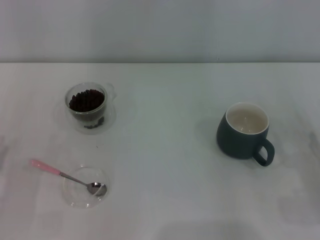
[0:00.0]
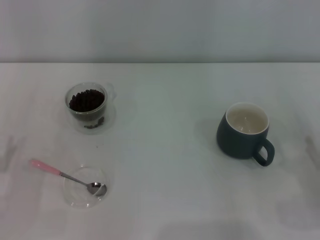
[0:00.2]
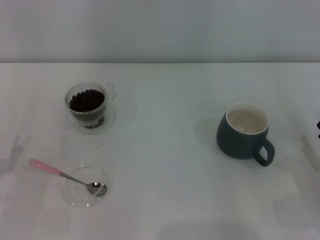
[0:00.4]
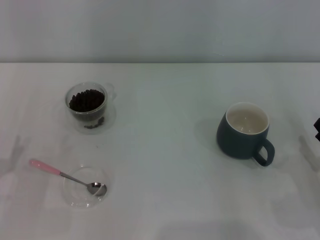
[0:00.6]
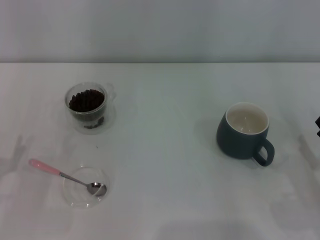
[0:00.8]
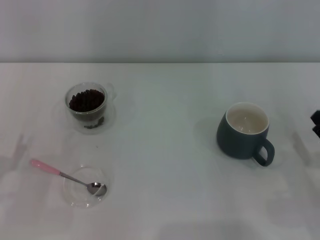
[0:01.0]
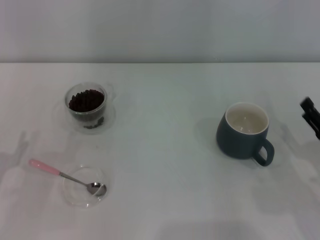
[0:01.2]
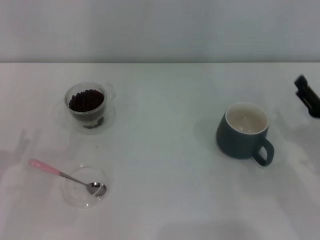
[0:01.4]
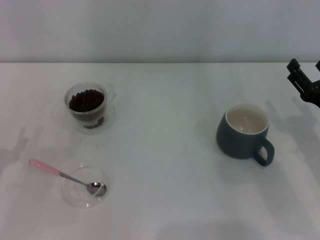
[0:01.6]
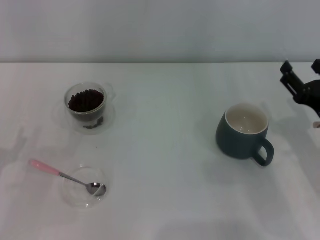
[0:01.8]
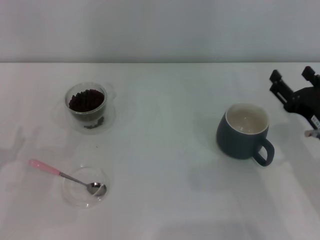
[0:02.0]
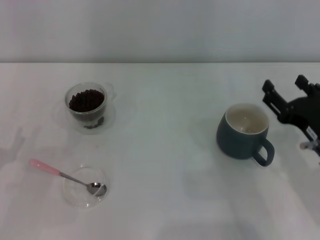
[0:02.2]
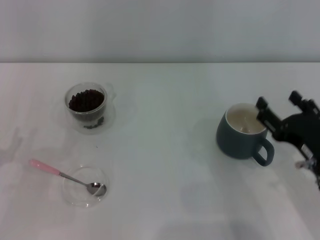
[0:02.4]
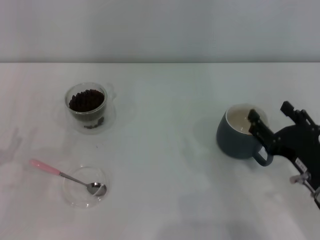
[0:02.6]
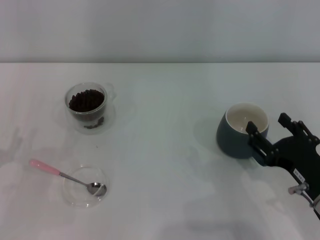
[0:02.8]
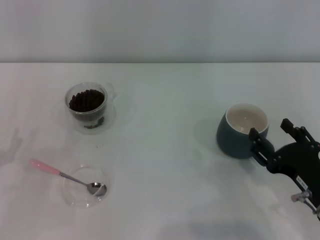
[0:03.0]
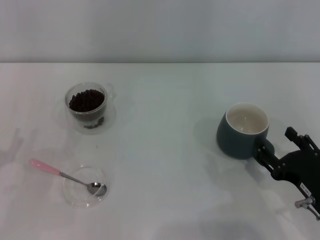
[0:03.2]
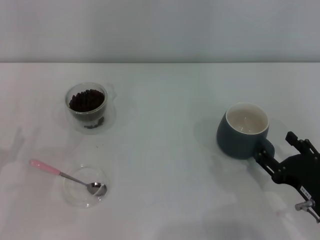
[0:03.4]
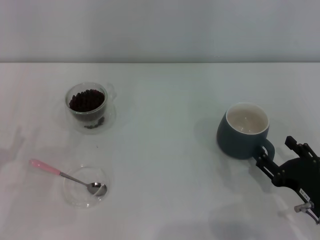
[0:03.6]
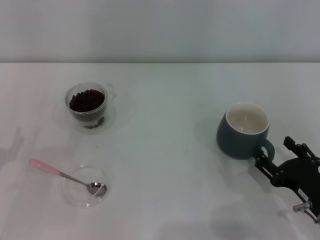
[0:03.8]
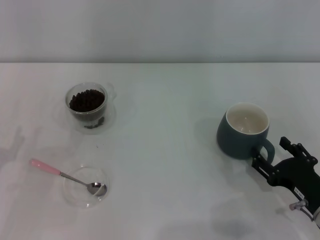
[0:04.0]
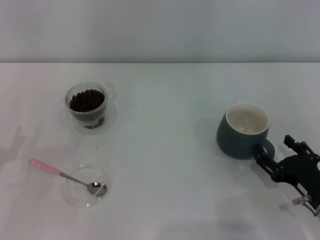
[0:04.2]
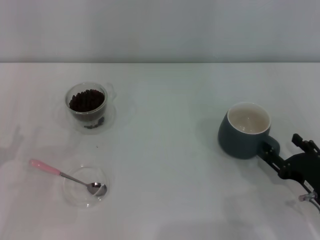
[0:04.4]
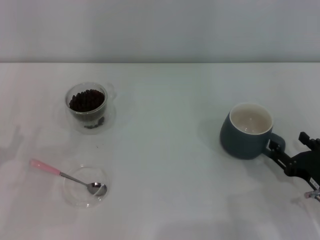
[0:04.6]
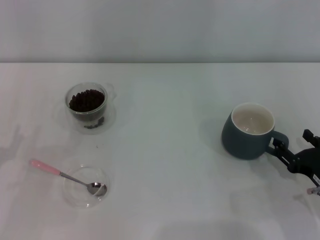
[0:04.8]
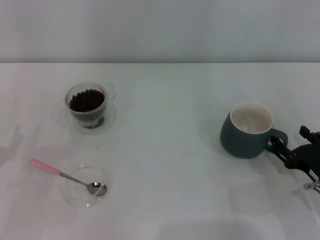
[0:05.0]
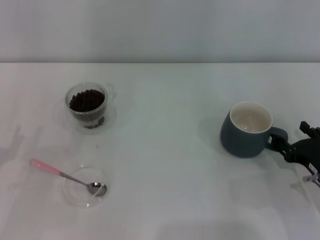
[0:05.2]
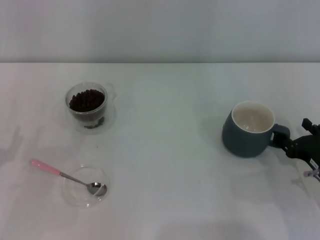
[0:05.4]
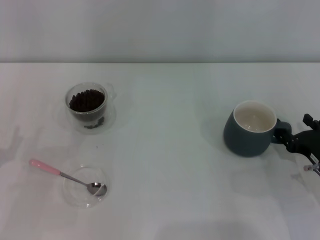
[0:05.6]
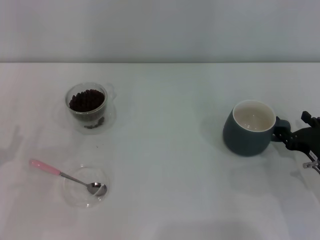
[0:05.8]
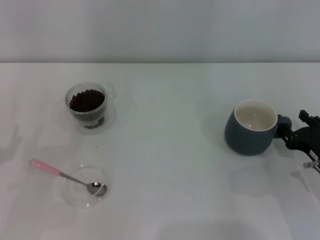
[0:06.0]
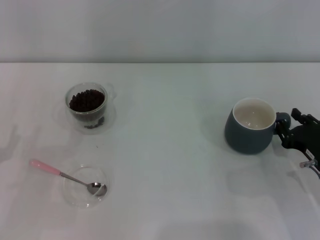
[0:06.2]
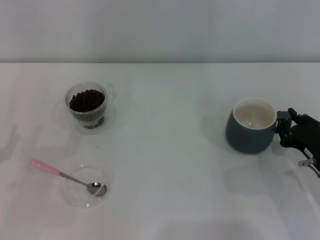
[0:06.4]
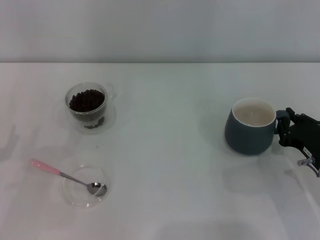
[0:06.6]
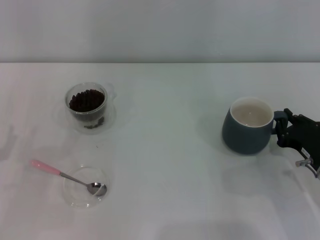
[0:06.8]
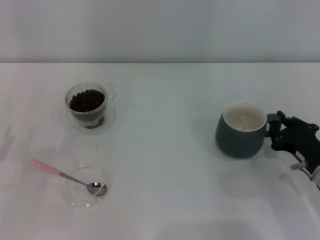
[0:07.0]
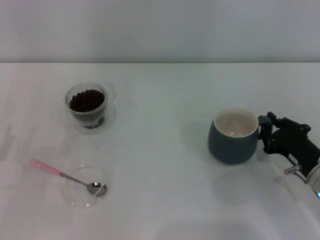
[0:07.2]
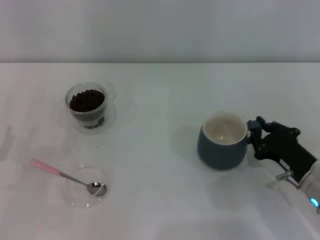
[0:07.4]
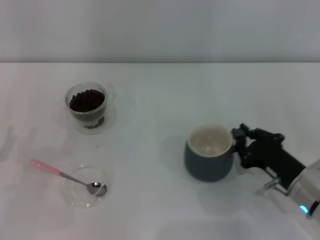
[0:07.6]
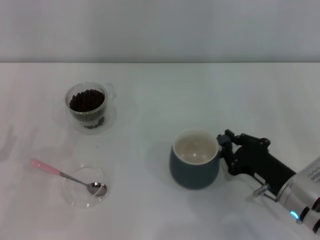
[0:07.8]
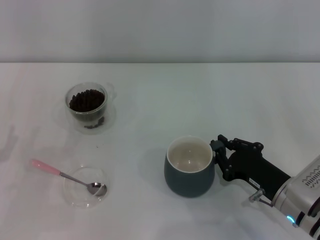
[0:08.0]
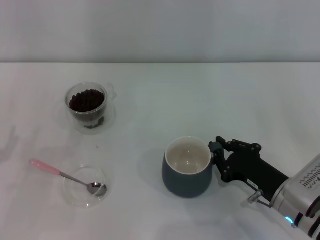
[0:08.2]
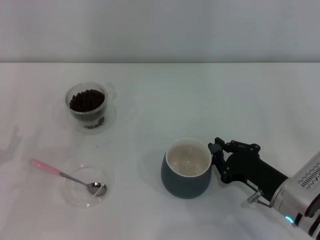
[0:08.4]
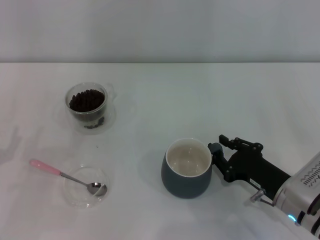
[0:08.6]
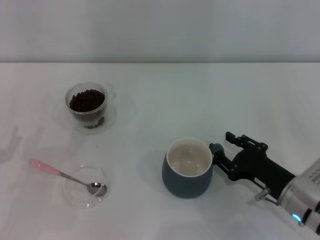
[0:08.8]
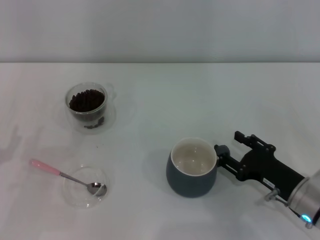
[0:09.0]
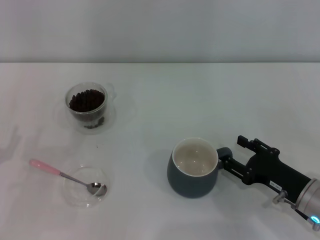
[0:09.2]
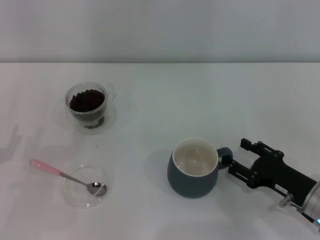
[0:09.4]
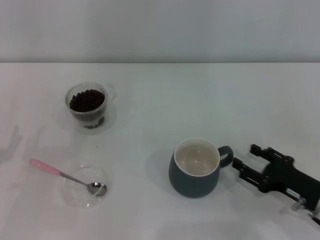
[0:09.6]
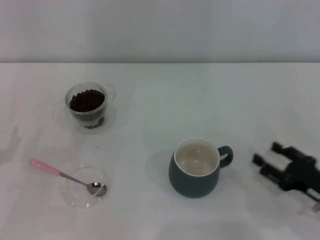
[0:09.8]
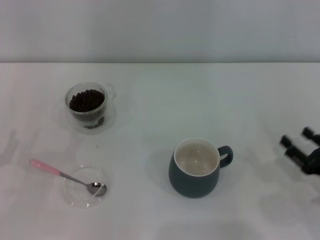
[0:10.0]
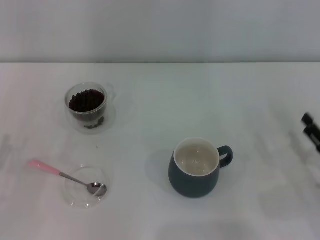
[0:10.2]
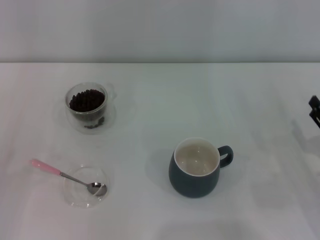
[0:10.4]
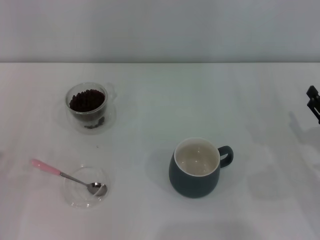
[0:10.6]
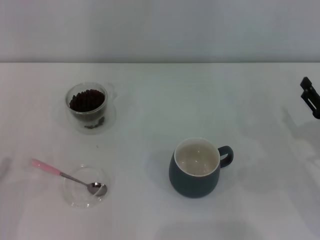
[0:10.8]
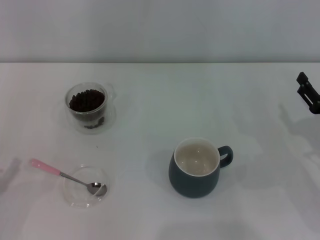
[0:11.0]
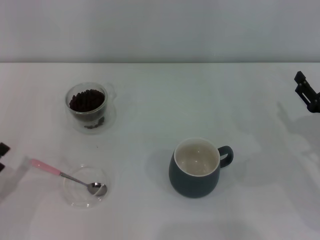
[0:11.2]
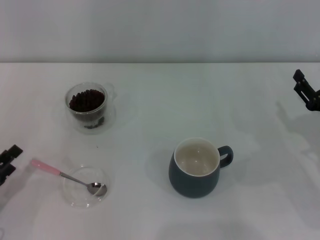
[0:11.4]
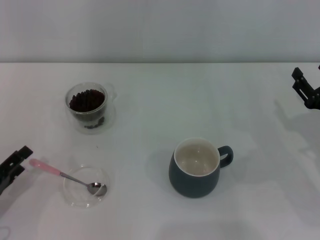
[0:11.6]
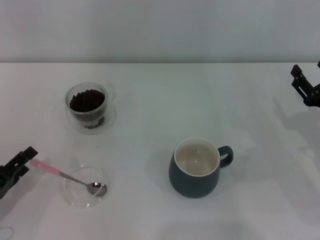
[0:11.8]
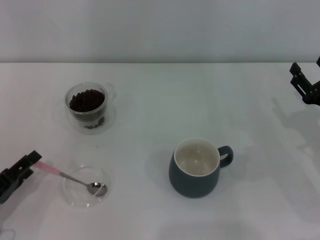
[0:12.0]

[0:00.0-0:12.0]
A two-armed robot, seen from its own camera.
Task of the whole recording: Use a pink spoon to take out the coffee beans from the glass and pour them into the gray cup.
0:00.0 to 0:01.6: The right gripper moves forward and to the left, approximately 10 cm.
0:01.6 to 0:03.0: The right gripper goes about 10 cm backward and to the left.
0:03.0 to 0:04.4: The right gripper moves approximately 5 cm.
0:04.4 to 0:06.0: The right gripper moves forward, roughly 5 cm.
0:06.0 to 0:07.6: The right gripper heads to the left, covering roughly 5 cm, and closes up.
0:07.6 to 0:09.0: The right gripper opens.
0:09.0 to 0:10.4: The right gripper heads to the right, covering about 10 cm.
0:10.4 to 0:12.0: The right gripper travels forward by approximately 5 cm. The left gripper ends up approximately 5 cm from where it was.

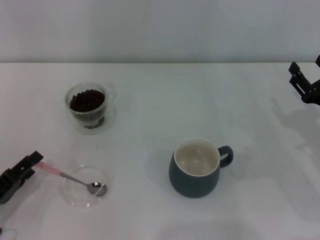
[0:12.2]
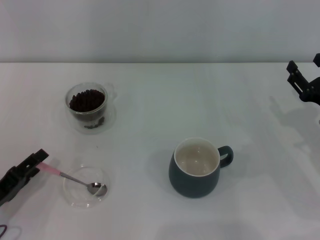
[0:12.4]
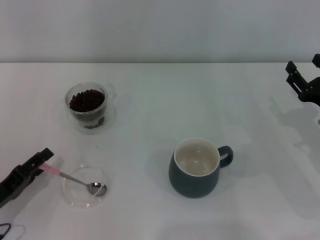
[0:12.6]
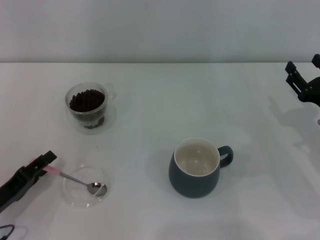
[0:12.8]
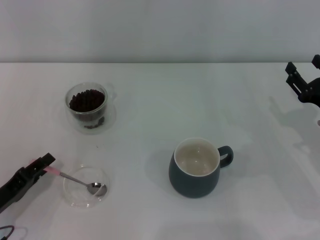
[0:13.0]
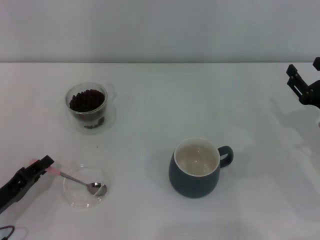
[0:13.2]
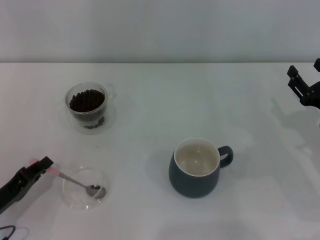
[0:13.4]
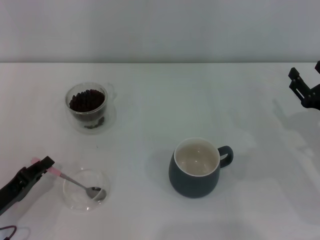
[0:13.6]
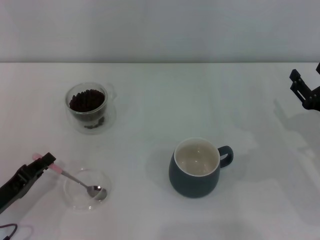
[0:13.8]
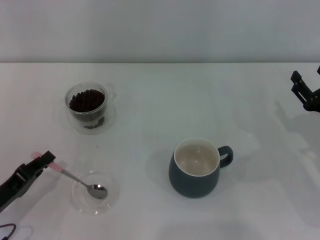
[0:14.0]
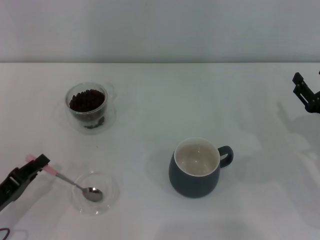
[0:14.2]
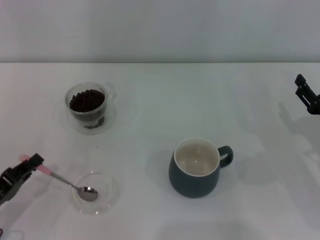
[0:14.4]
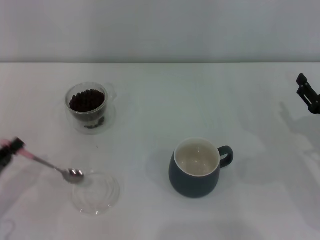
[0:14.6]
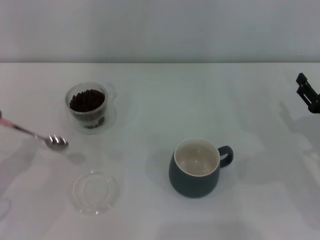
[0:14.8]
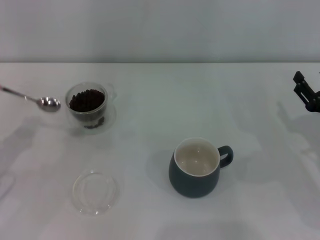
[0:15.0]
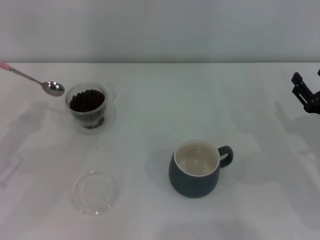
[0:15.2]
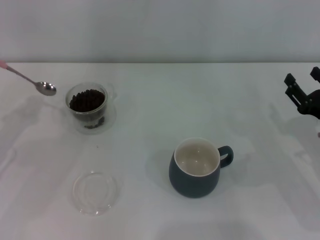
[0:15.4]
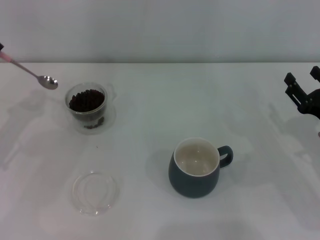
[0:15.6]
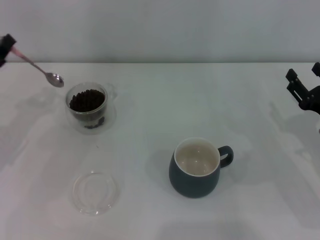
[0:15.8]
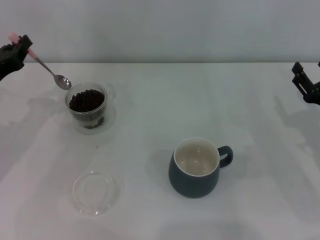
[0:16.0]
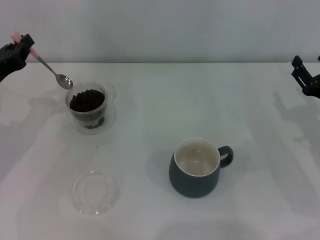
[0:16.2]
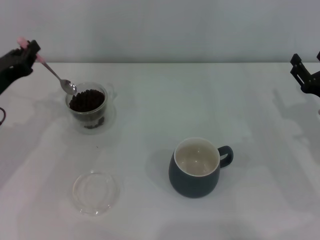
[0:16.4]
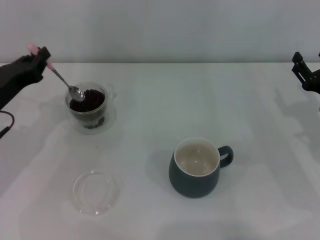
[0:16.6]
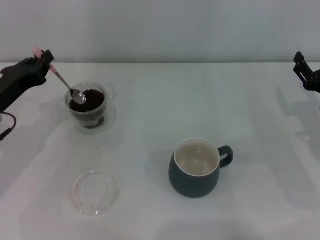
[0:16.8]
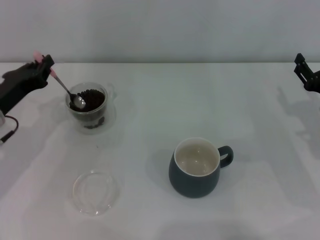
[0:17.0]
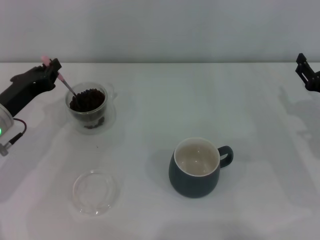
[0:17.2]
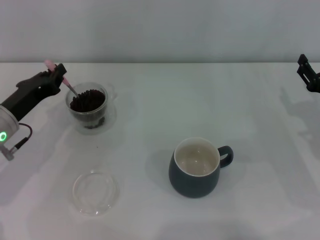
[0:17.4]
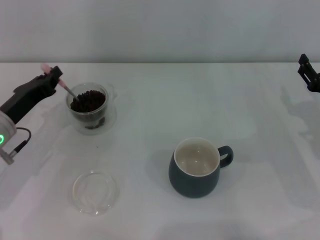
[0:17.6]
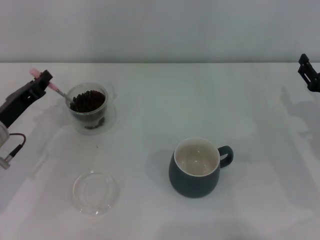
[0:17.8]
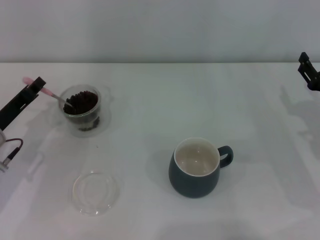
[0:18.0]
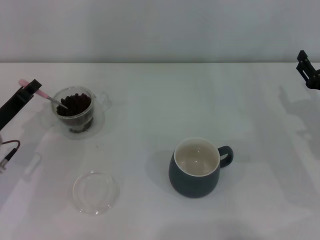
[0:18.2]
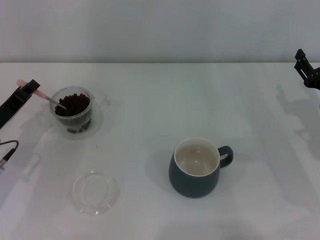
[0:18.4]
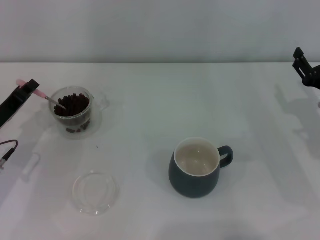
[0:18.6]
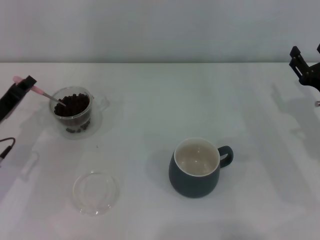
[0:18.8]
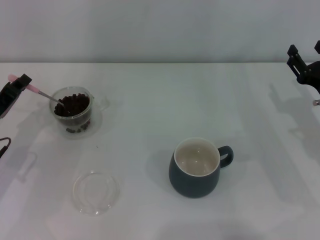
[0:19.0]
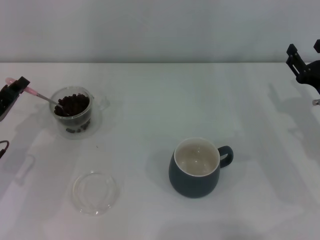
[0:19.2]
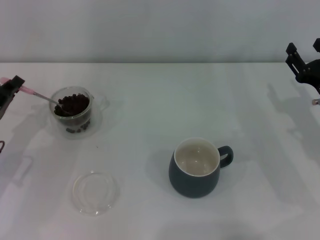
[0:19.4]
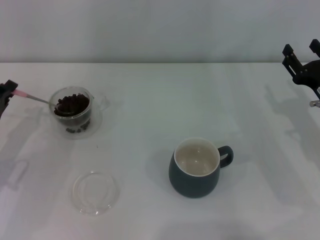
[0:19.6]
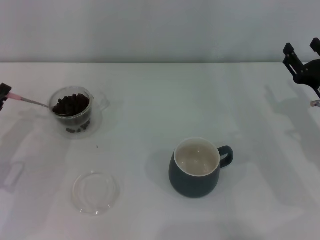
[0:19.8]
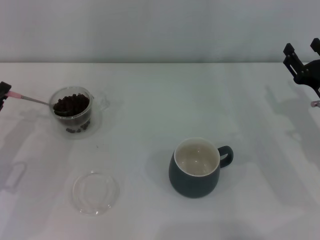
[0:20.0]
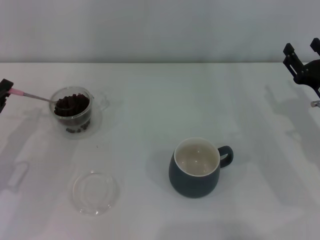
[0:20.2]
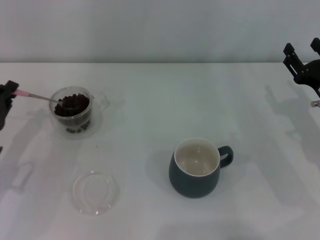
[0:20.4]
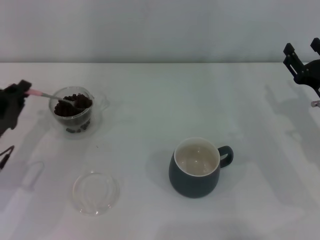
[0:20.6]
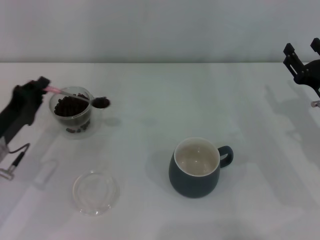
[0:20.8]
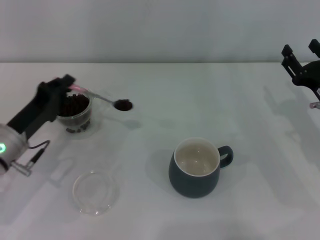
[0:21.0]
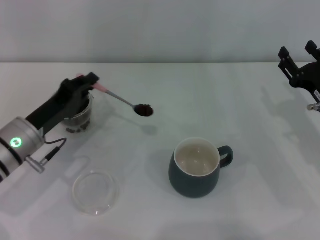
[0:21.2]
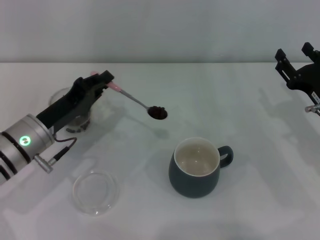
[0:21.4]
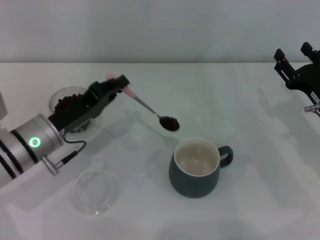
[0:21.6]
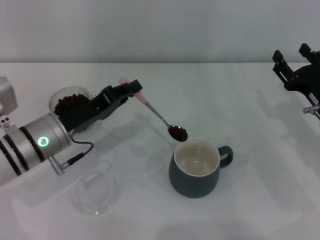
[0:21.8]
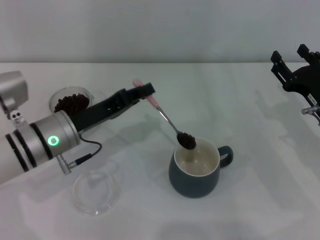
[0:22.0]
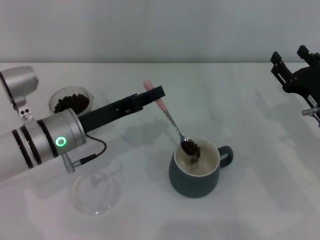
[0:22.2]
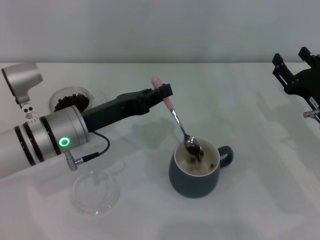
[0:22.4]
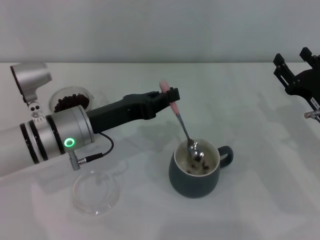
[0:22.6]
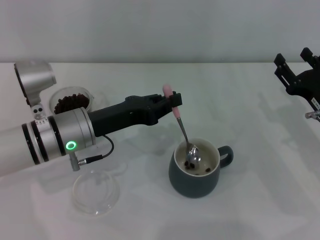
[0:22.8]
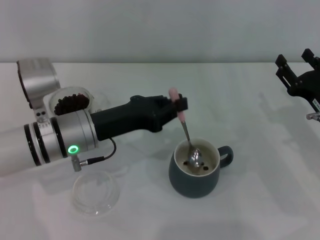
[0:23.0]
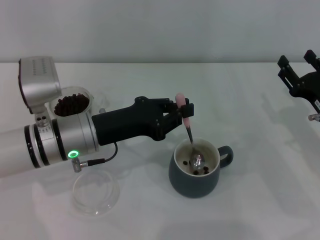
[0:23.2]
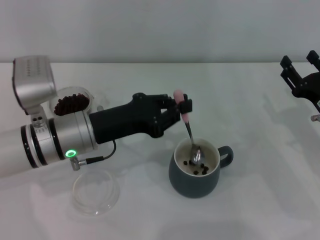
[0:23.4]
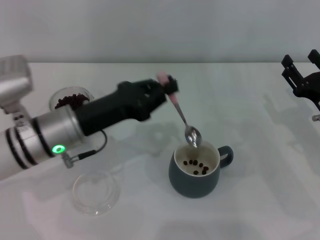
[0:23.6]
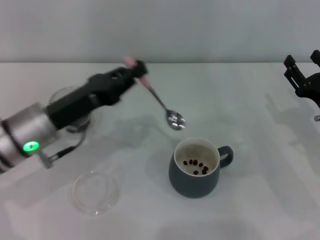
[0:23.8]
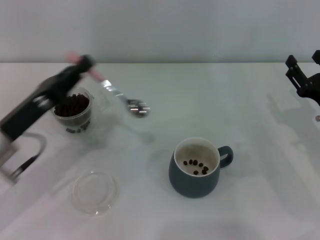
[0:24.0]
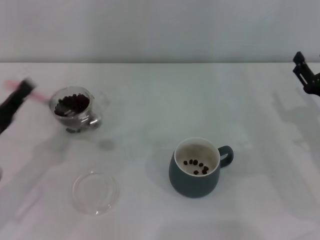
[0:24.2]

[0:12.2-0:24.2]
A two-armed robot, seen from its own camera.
Task of the whole recording: Use a pink spoon to take out the coffee beans from the glass and pour them into the gray cup.
Step, 0:12.2 to 0:14.4: Pick up the spoon with the right gripper.
Step, 0:14.6 to 0:22.6: Scoop a spoonful of beans into the cup with the right gripper.
0:12.2 to 0:13.8: The left gripper closes.
0:13.8 to 0:15.2: The left gripper heads upward and forward, covering roughly 10 cm.
0:15.2 to 0:16.6: The left gripper goes roughly 5 cm to the right.
0:18.2 to 0:19.8: There are only small adjustments of the grippers.
0:19.8 to 0:21.2: The left gripper travels to the right by some 10 cm.
0:21.2 to 0:22.6: The left gripper moves to the right, some 5 cm.
0:22.6 to 0:24.2: The left gripper moves to the left and backward, about 15 cm.
